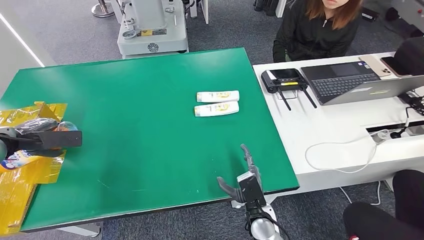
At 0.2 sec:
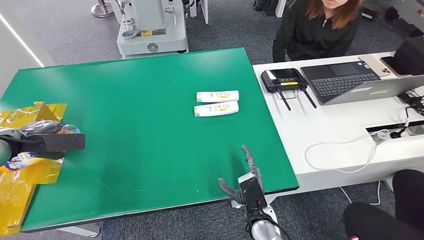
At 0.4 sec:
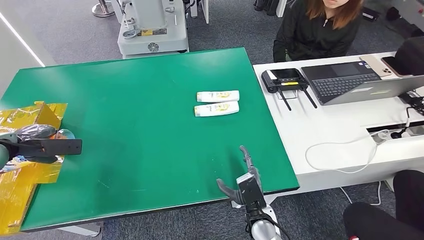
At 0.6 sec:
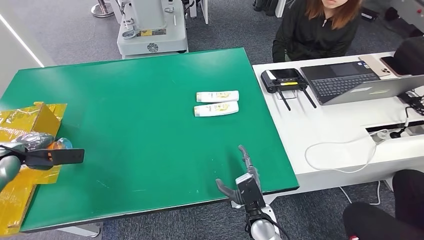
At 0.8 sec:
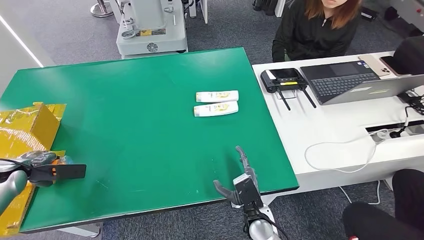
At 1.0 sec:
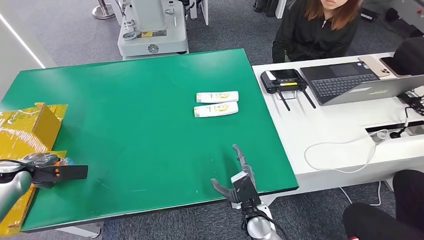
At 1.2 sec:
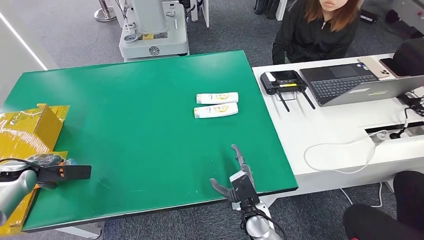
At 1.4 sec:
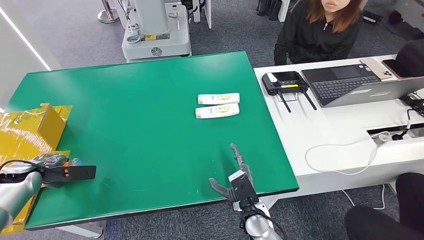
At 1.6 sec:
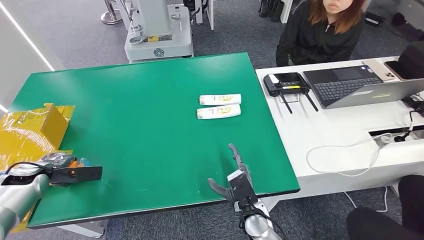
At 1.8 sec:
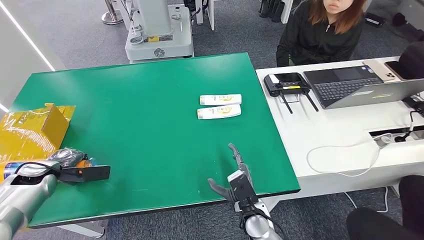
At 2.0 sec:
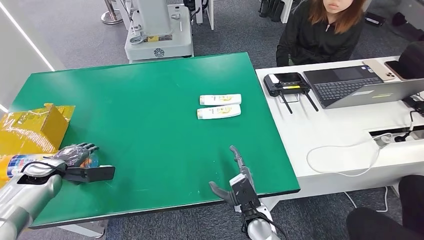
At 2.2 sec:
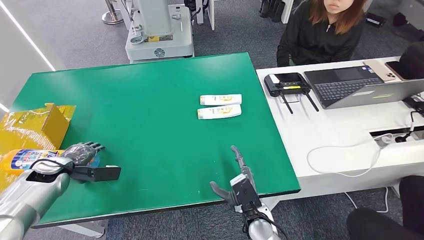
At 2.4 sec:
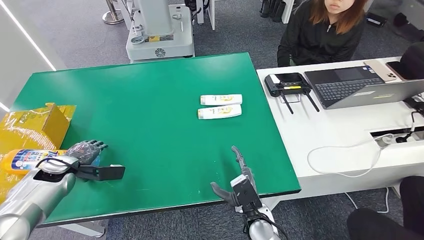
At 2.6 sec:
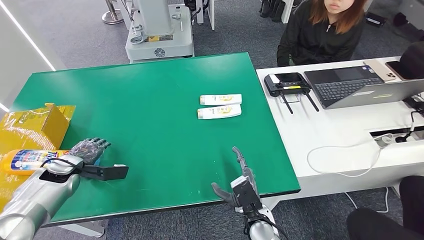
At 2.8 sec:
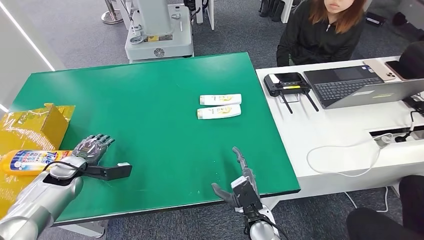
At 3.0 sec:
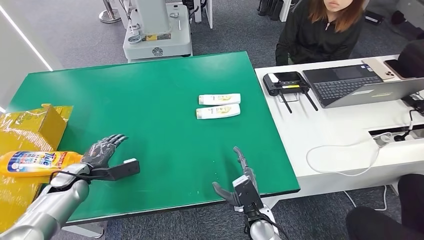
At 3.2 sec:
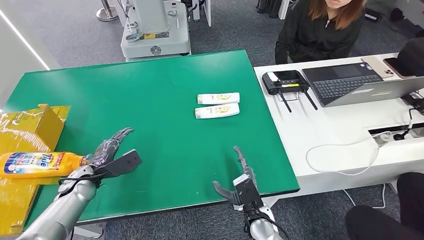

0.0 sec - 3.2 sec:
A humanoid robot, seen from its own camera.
Step, 0.0 sec - 3.2 sec: Turn the bottle to the front side.
